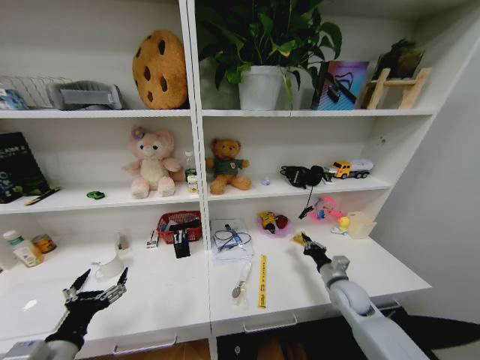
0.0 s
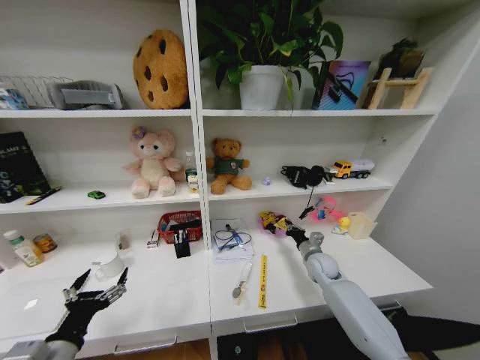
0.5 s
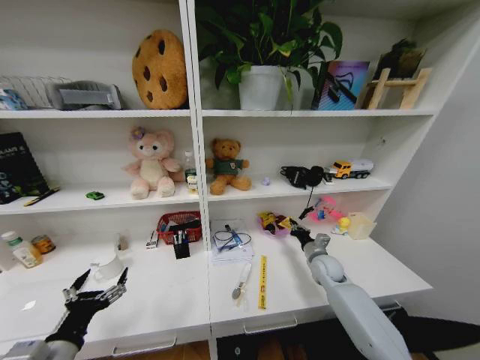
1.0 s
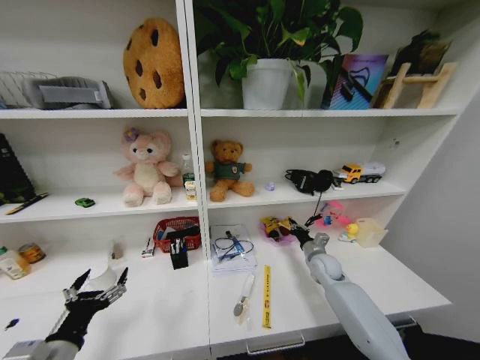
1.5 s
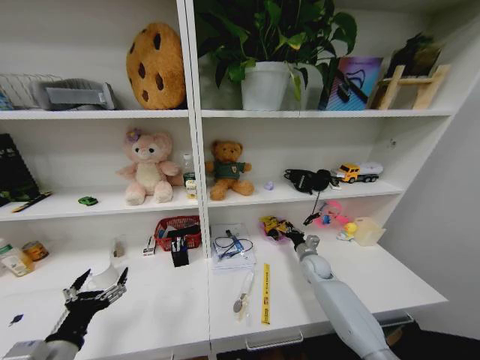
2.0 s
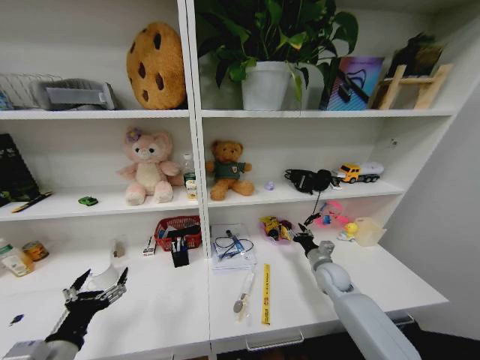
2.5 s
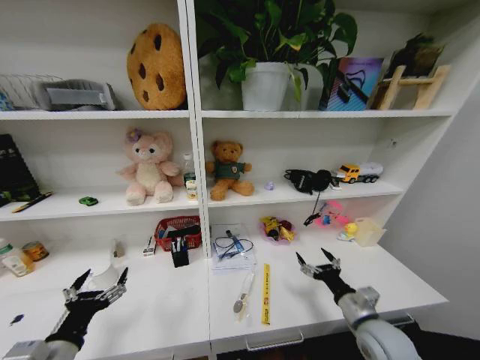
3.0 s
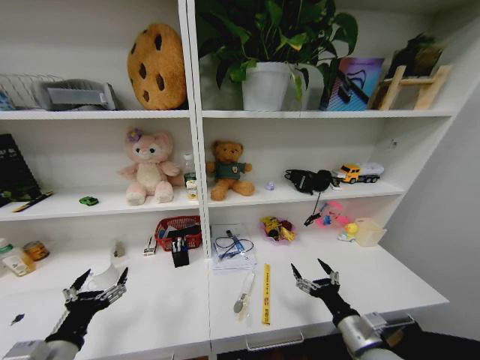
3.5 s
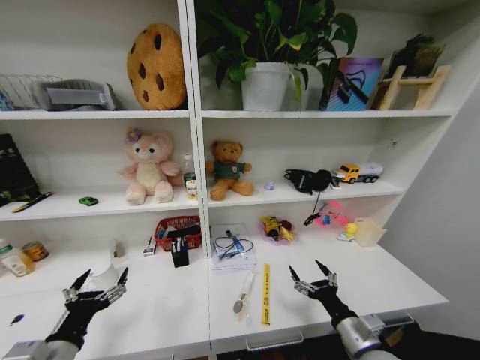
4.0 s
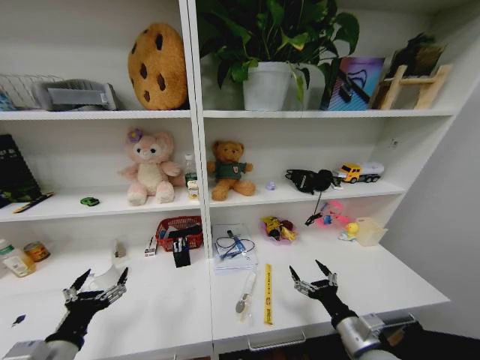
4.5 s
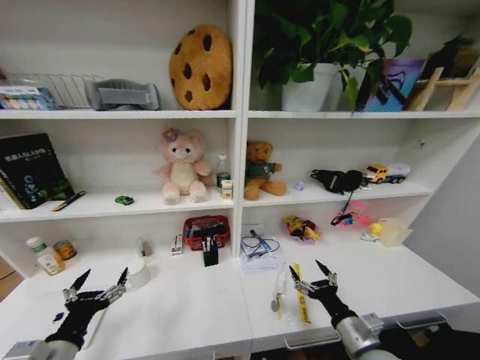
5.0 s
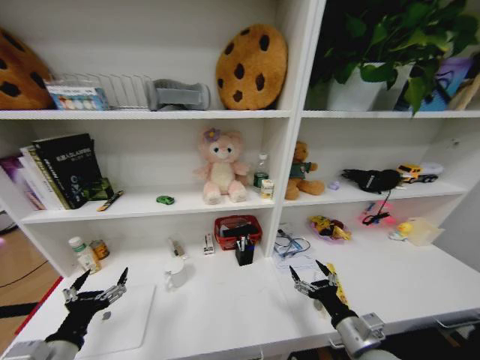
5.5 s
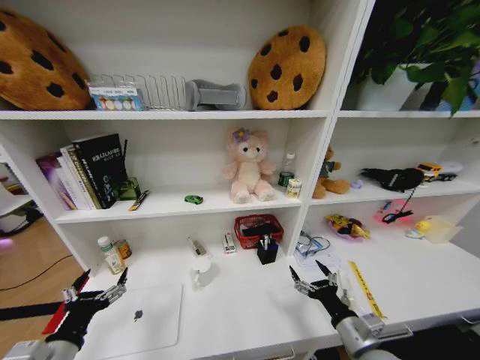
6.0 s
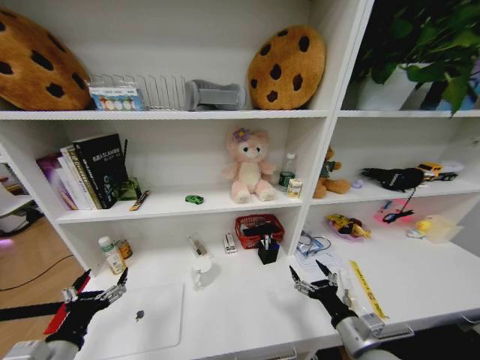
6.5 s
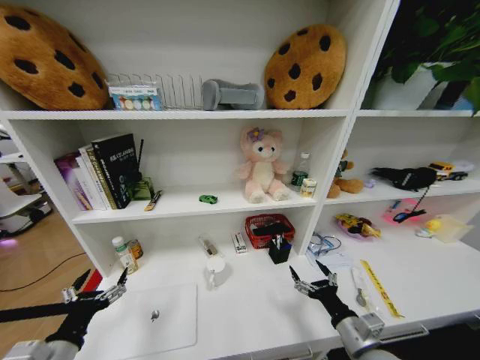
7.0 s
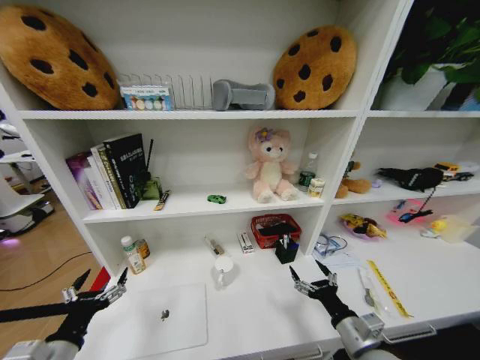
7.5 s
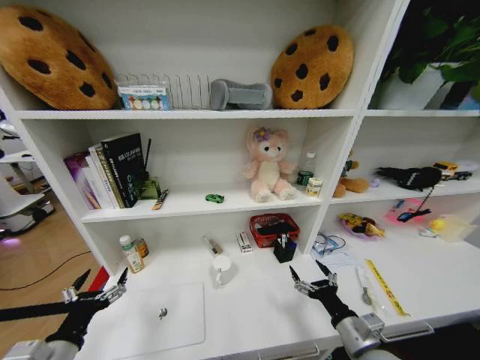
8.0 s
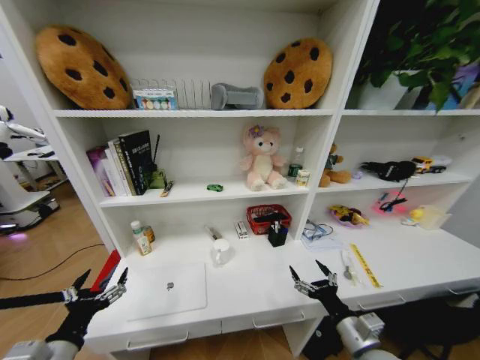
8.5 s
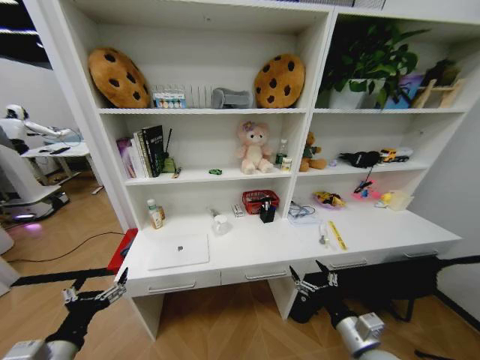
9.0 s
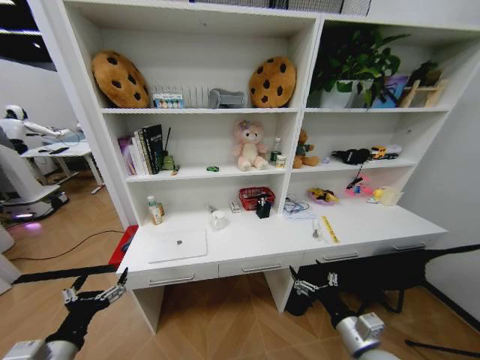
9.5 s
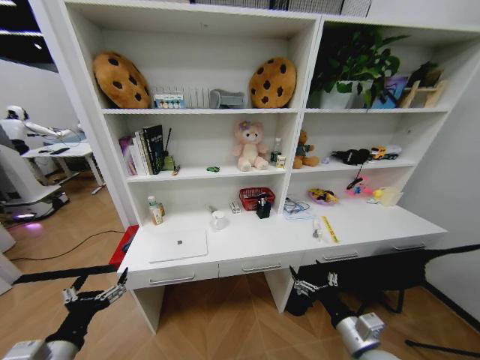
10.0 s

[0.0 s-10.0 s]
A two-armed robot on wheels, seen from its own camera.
Task of the whole recording: Organize the objects on the table.
0.0 to 2.0 s: The right gripper moves forward, some 10 cm.
2.0 to 4.0 s: The right gripper goes about 30 cm backward, and opens its fingers.

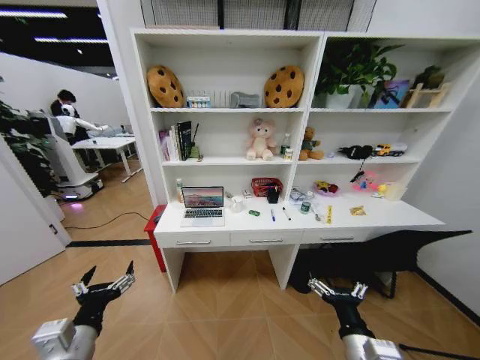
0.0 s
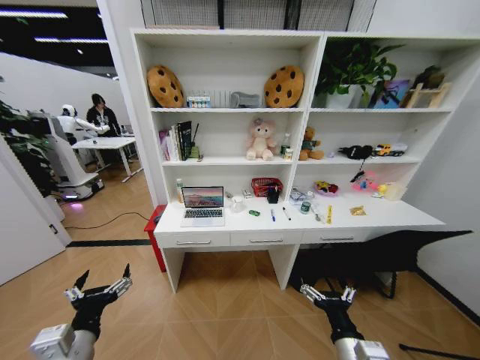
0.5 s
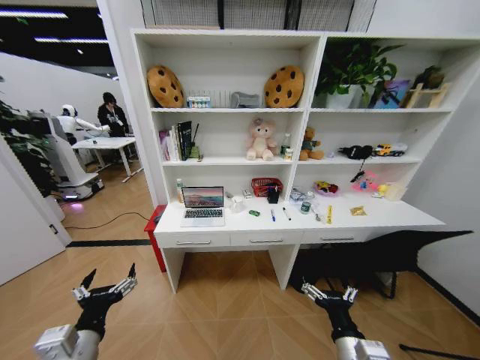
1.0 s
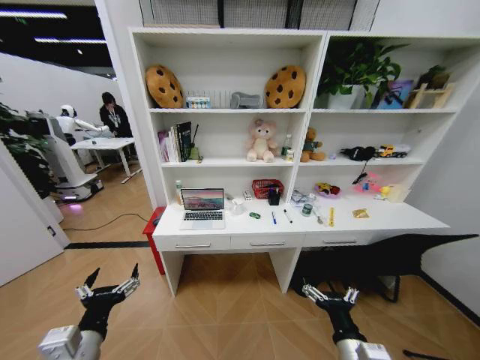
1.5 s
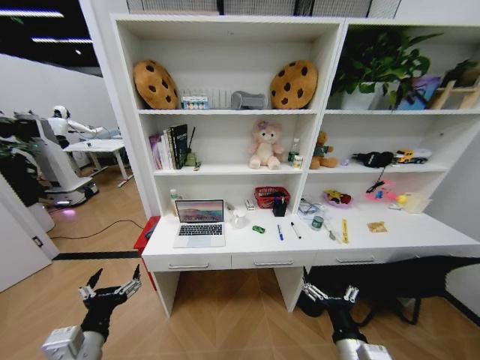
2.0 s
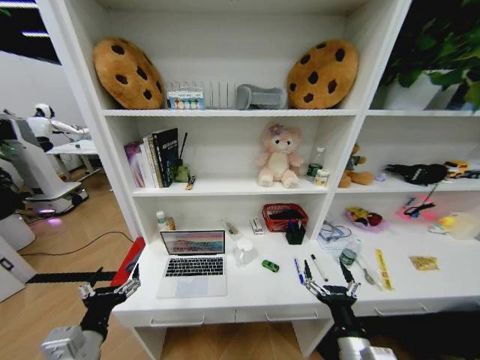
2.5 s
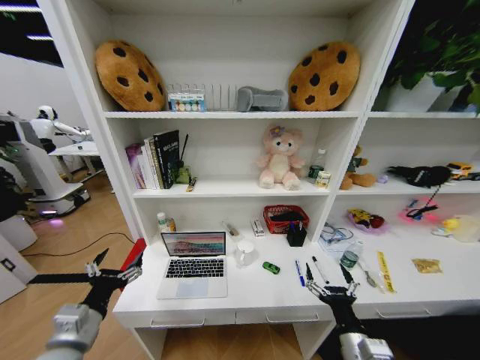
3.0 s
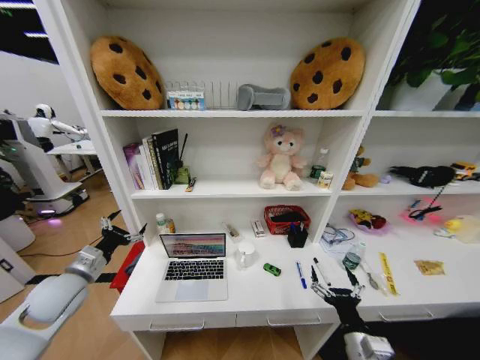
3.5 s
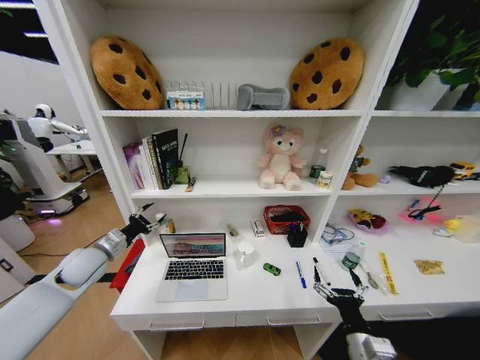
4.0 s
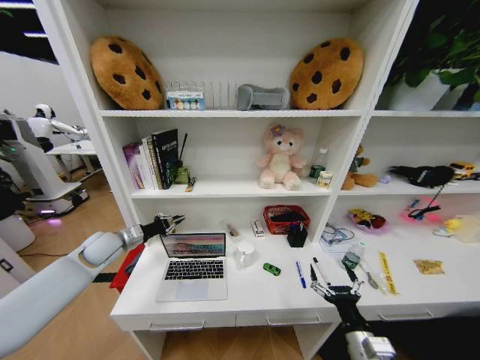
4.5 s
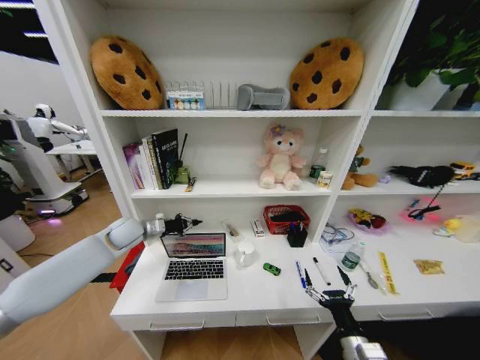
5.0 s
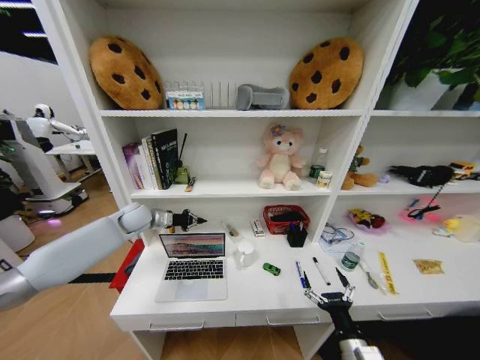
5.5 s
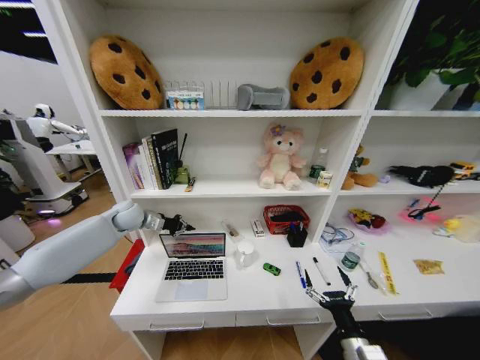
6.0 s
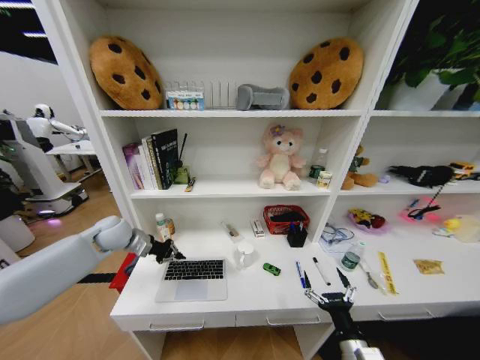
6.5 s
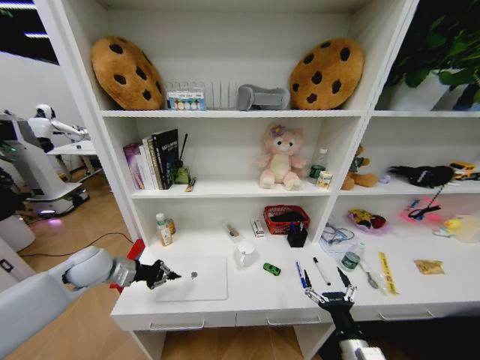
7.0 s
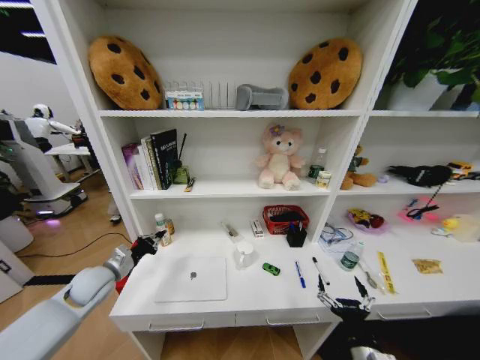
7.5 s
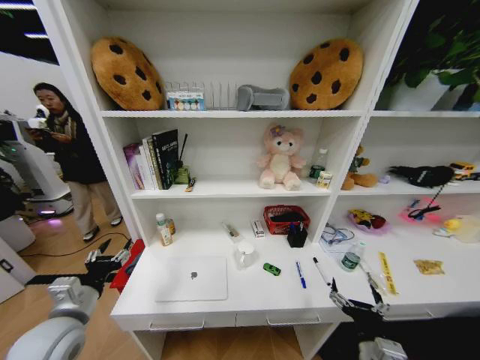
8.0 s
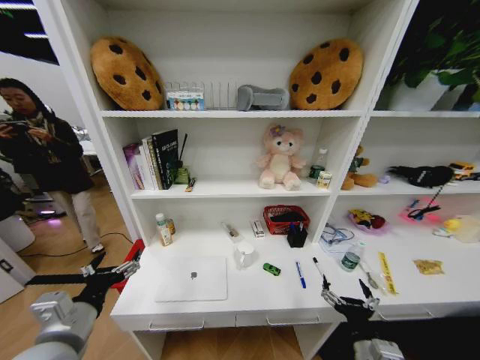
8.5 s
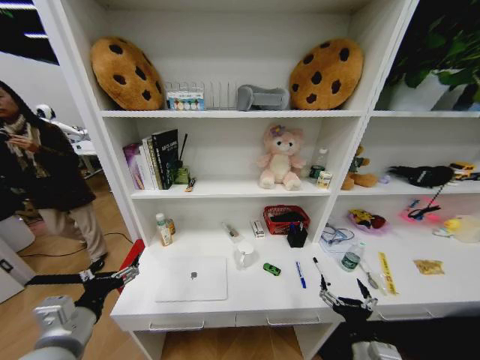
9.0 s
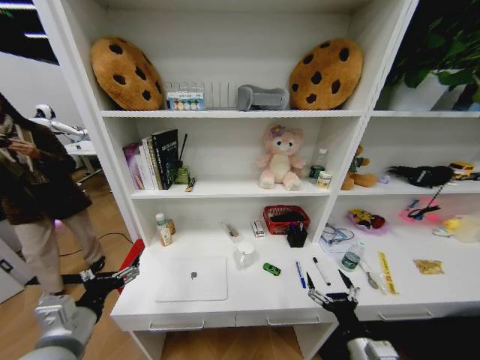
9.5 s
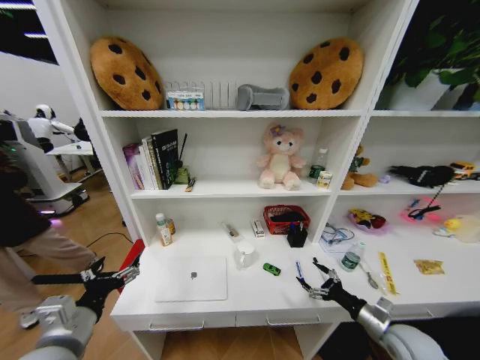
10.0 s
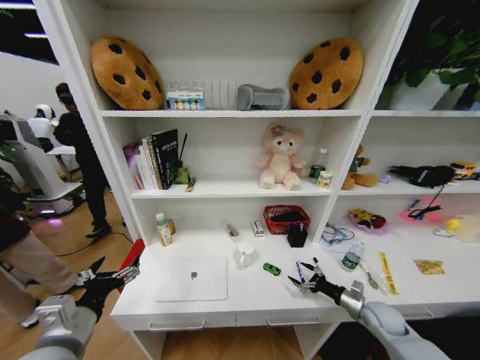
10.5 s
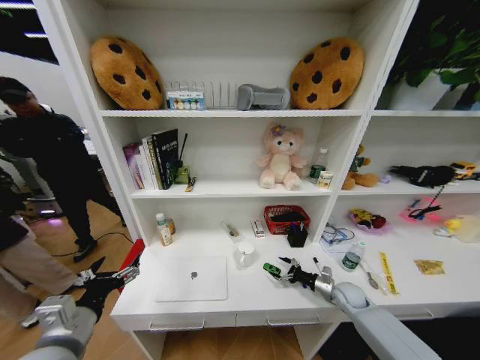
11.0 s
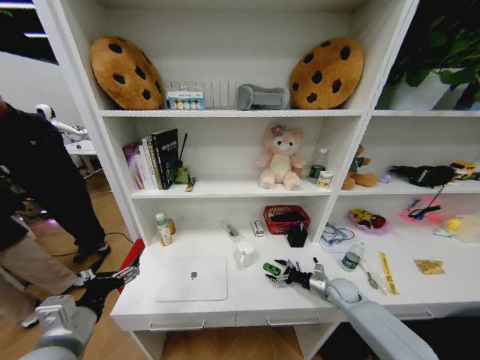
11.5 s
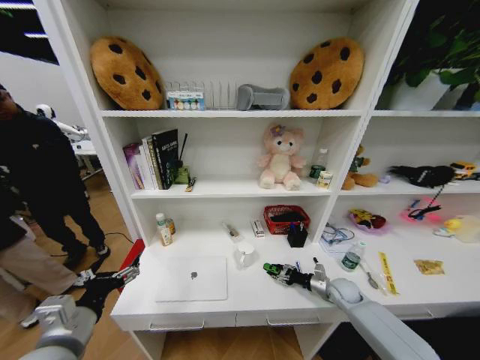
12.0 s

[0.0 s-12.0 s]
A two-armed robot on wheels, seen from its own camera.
Task of the whole recording: Organize the objects on the table.
2.0 to 4.0 s: The right gripper moves approximately 5 cm, while the left gripper goes about 25 cm forward and to the left.
4.0 to 6.0 s: The left gripper shifts approximately 15 cm forward, and closes its fingers.
6.0 to 8.0 s: The left gripper is displaced backward by some 30 cm, and opens its fingers.
8.0 to 10.0 s: The right gripper is displaced to the right and forward by approximately 15 cm; the left gripper goes about 5 cm backward, and opens.
10.0 to 12.0 s: The right gripper is displaced forward and downward by roughly 20 cm, and closes up.

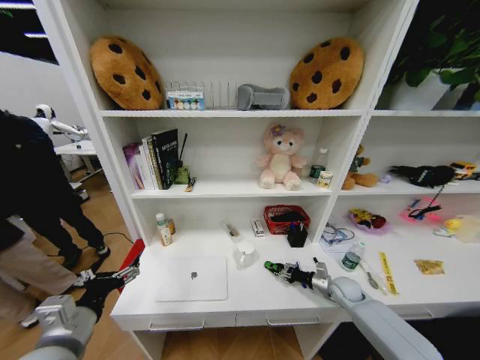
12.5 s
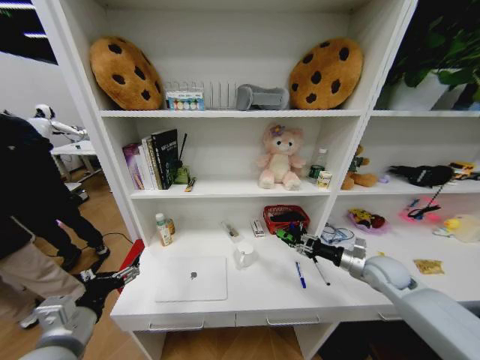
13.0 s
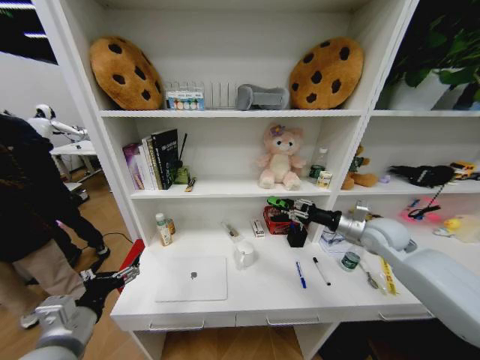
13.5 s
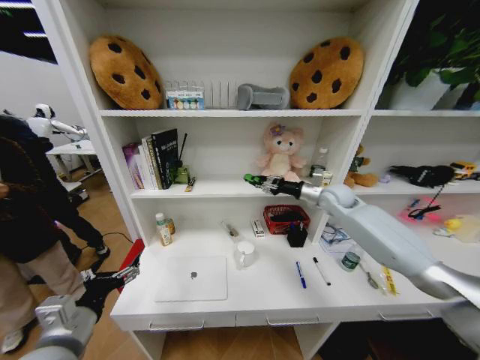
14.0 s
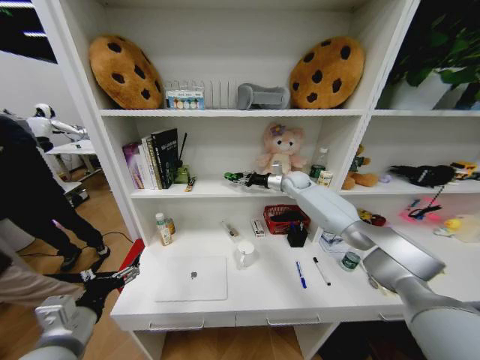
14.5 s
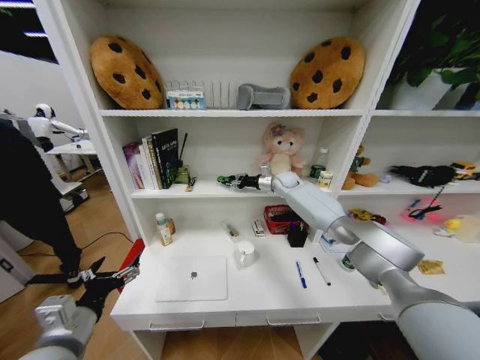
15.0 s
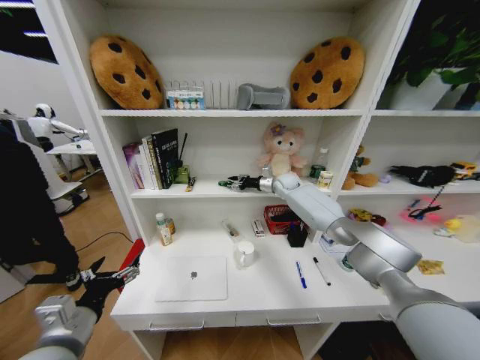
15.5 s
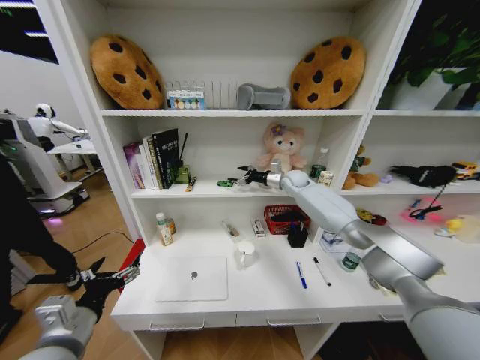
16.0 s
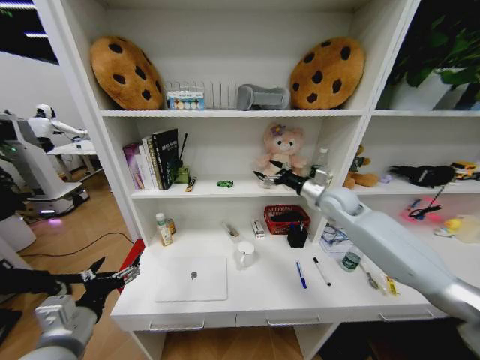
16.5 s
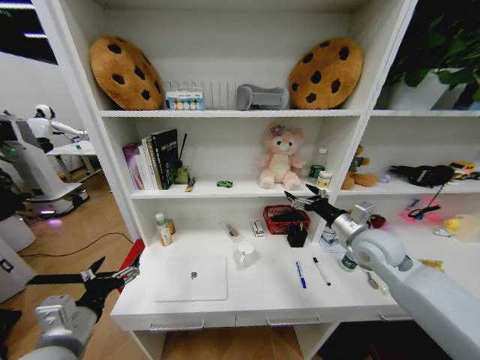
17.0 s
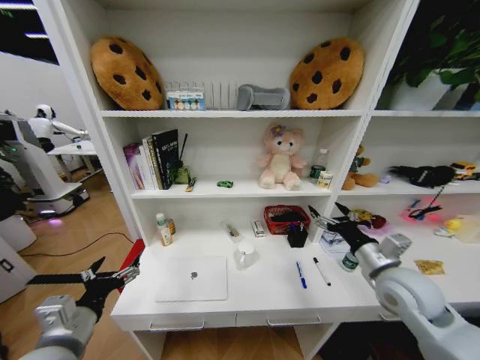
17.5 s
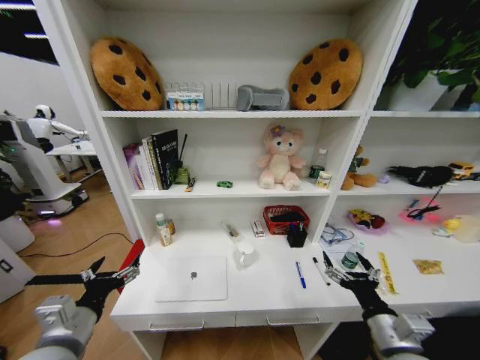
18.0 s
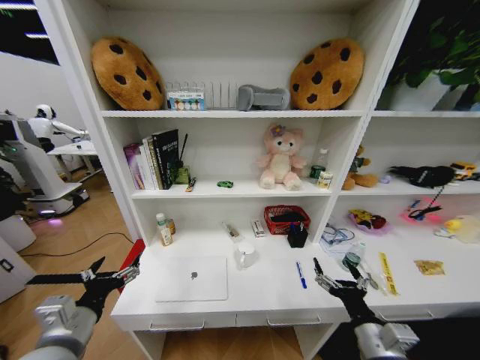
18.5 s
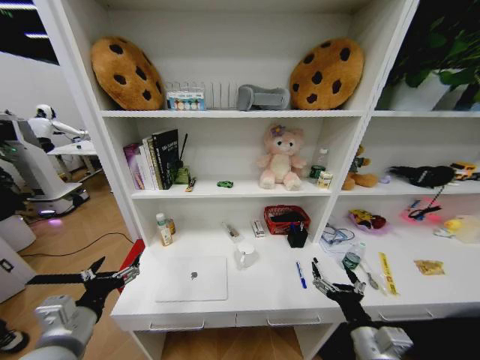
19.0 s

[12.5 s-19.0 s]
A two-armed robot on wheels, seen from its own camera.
Task of the whole recording: Organize the objects on the table.
12.5 to 14.5 s: The right gripper goes roughly 40 cm upward, forward and to the left.
14.5 to 17.0 s: The right gripper travels backward by about 30 cm, and opens up.
17.0 to 19.0 s: The right gripper heads backward and downward, covering about 25 cm.
